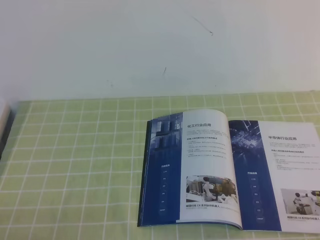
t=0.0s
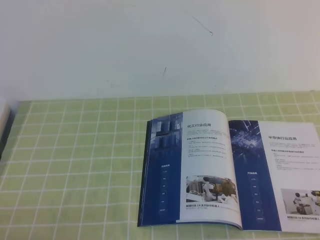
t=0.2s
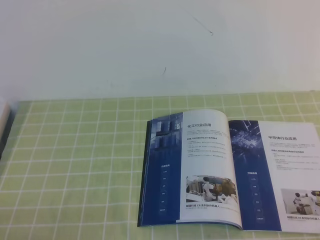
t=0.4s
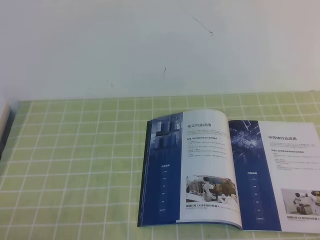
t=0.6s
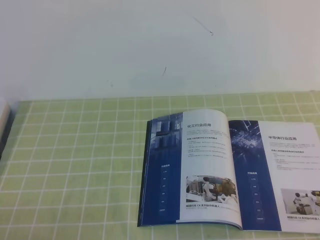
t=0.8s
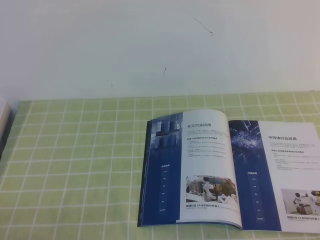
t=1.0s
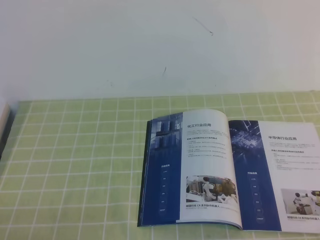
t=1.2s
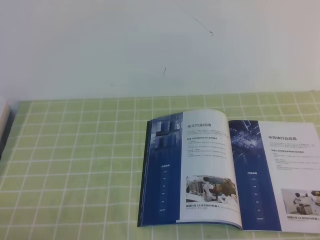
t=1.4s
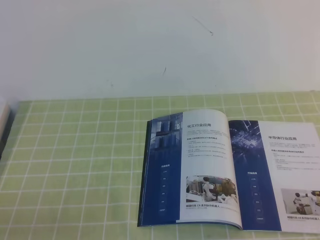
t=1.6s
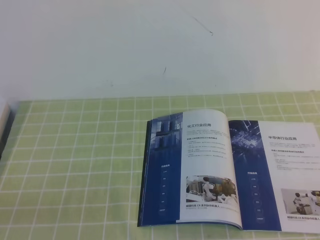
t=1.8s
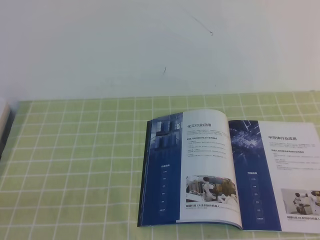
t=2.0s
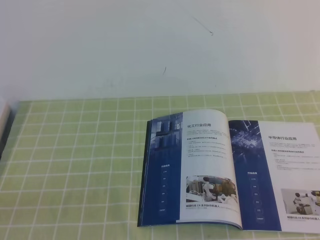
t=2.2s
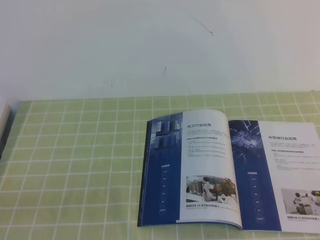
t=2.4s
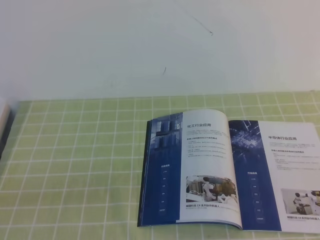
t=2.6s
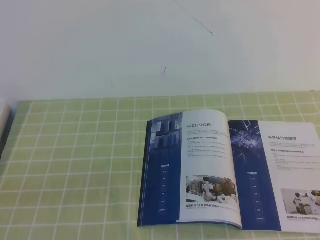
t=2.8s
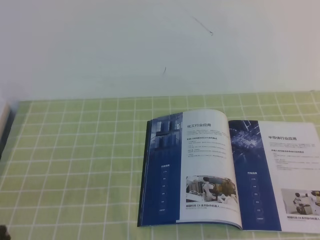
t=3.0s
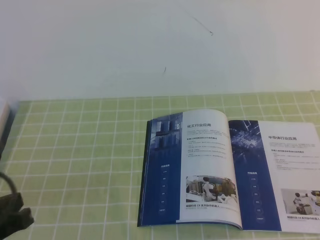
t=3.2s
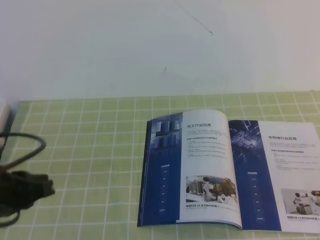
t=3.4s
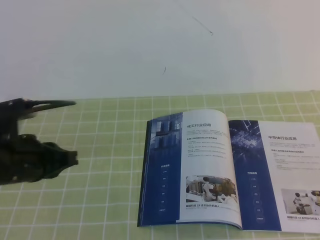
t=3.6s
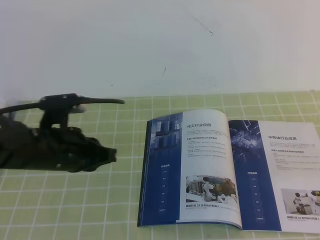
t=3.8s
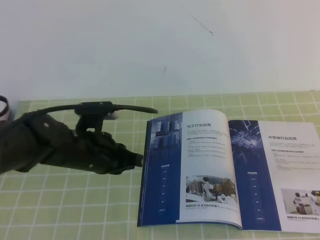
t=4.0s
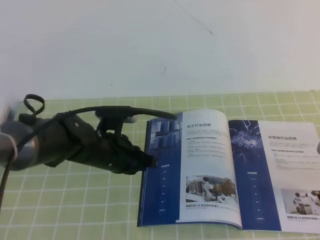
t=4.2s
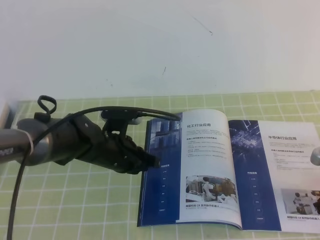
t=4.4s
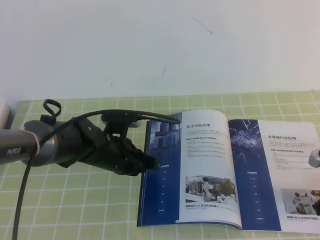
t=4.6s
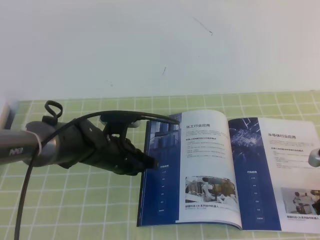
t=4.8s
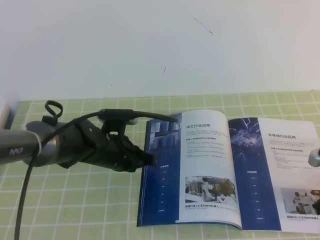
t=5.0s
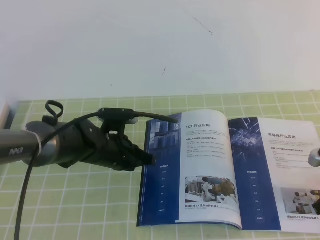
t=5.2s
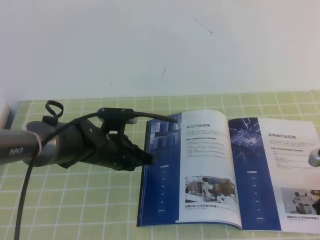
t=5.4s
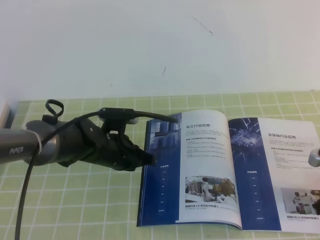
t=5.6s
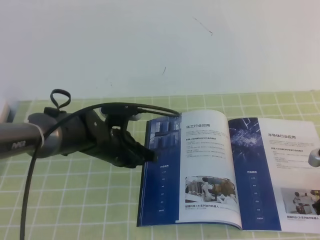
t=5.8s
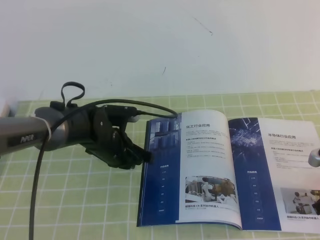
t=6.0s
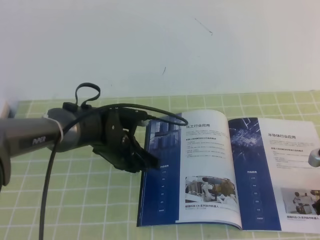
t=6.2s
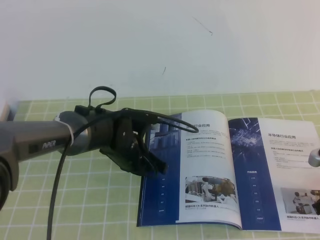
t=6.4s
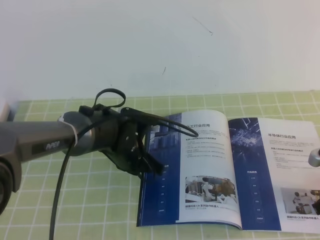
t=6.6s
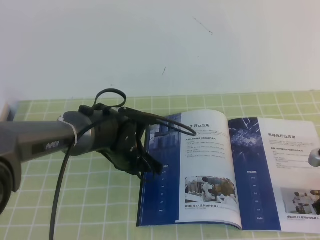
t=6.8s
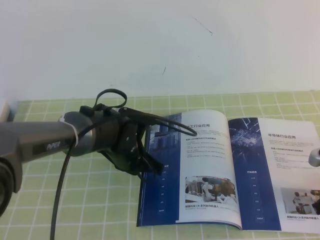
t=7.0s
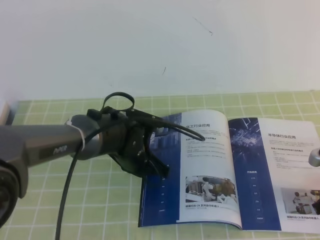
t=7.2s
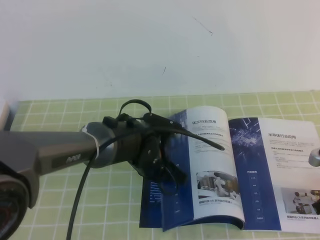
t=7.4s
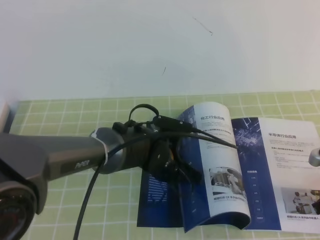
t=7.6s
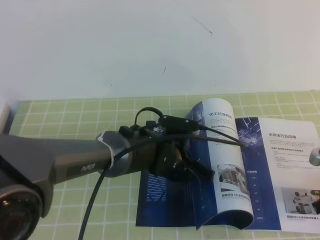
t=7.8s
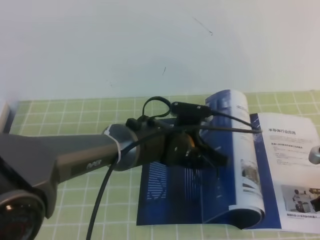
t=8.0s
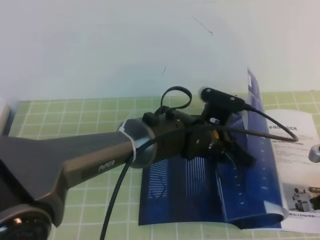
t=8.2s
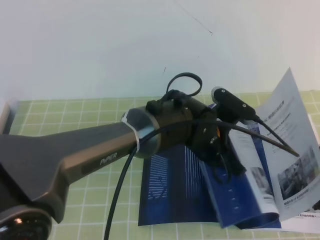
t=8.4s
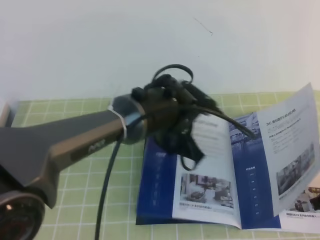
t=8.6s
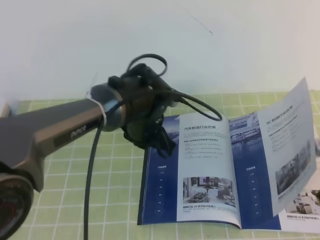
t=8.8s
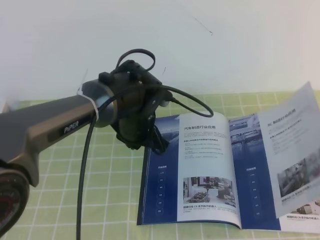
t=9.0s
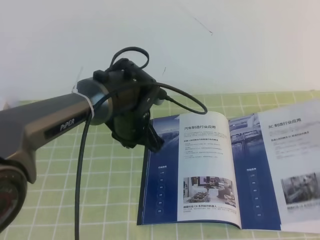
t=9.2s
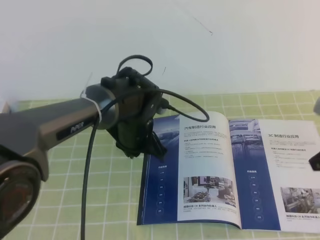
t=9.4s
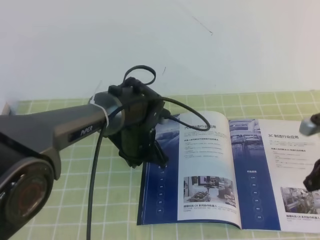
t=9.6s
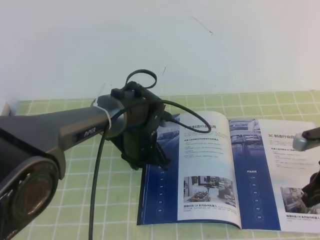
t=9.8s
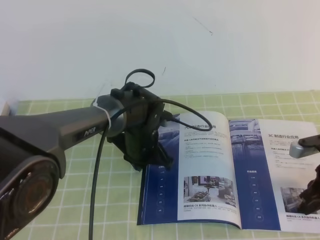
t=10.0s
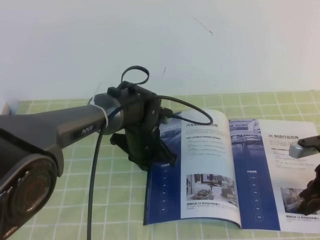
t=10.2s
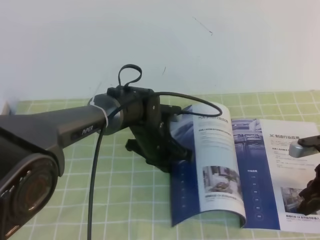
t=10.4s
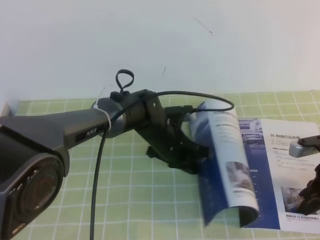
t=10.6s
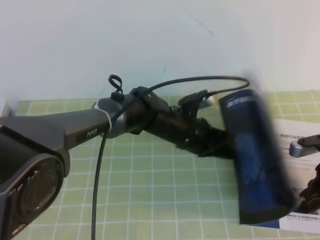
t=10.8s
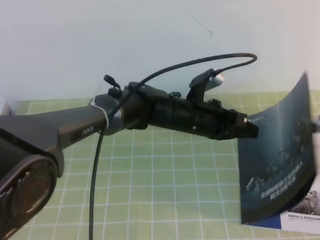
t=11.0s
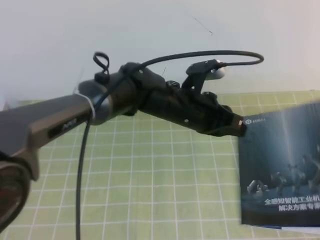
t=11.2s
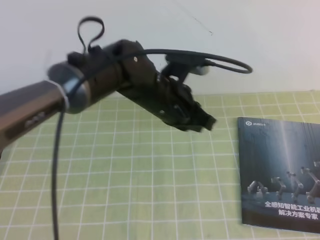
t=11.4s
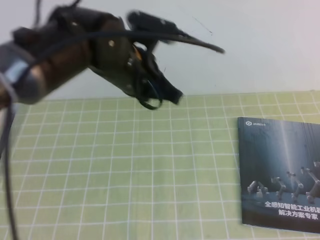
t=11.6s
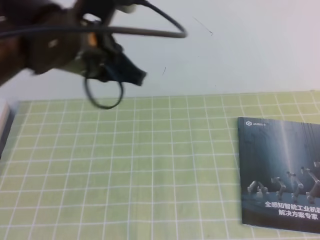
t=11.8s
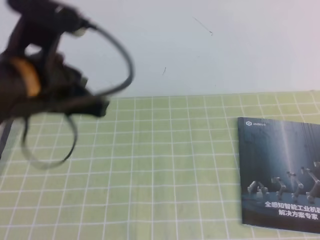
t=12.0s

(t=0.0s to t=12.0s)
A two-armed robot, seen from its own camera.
Task of the whole recording: on the green tablecloth, hold the book with one hand and close it with the other.
t=3.0s - t=4.4s: The right gripper is displaced forward and downward by about 25 cm; the left gripper is displaced forward, to the right and downward by about 30 cm.
t=4.4s - t=6.0s: The grippers stay close to where they were, moving slightly.
t=6.0s - t=7.6s: The left gripper travels to the right by some 10 cm.
t=7.6s - t=9.0s: The grippers both shift upward by about 10 cm.
t=9.0s - t=10.4s: The grippers both shift downward by about 5 cm.
t=10.4s - t=12.0s: The left gripper heads upward, backward and to the left, covering roughly 30 cm, while the right gripper is displaced upward and backward by approximately 30 cm.

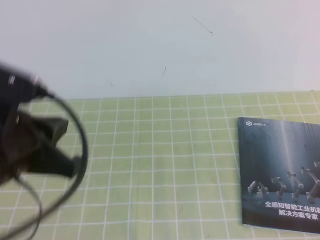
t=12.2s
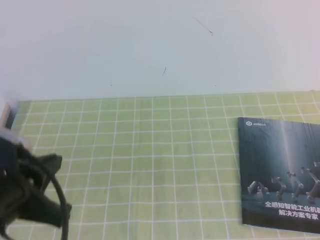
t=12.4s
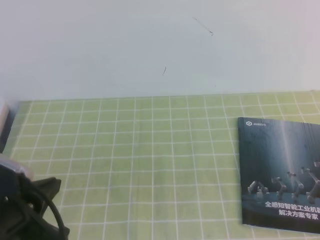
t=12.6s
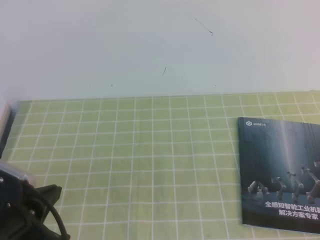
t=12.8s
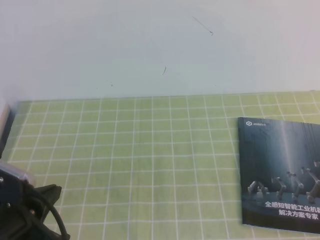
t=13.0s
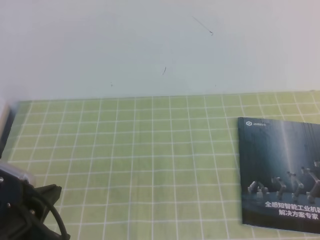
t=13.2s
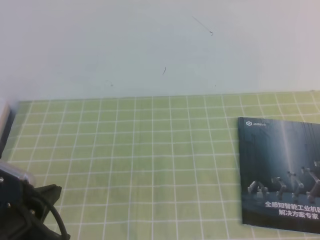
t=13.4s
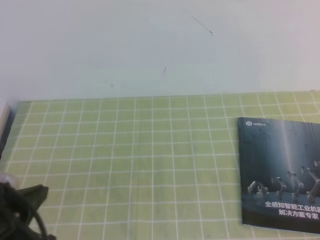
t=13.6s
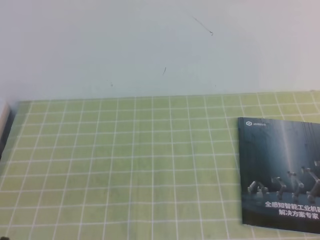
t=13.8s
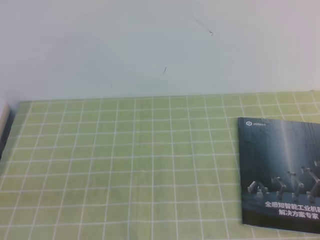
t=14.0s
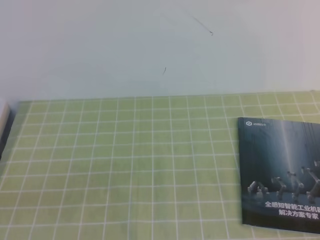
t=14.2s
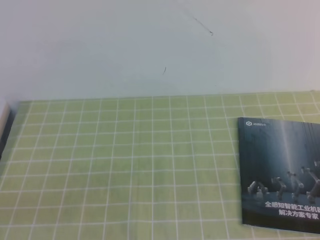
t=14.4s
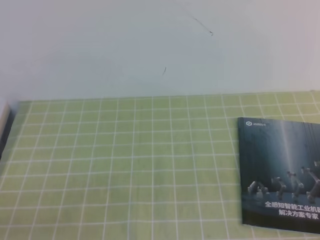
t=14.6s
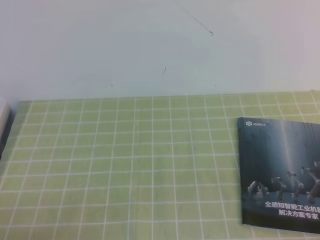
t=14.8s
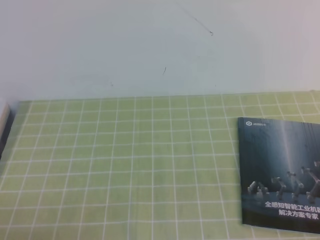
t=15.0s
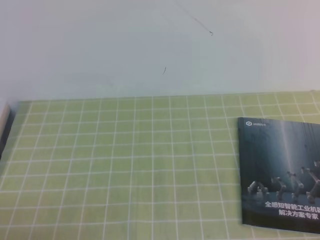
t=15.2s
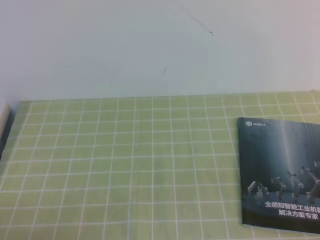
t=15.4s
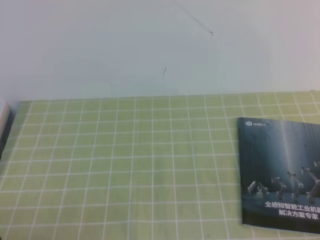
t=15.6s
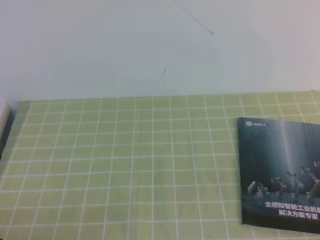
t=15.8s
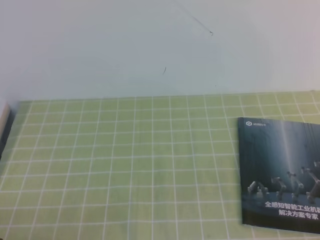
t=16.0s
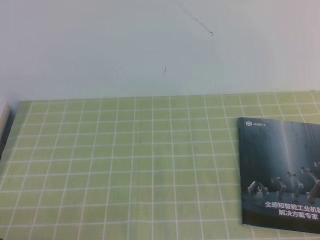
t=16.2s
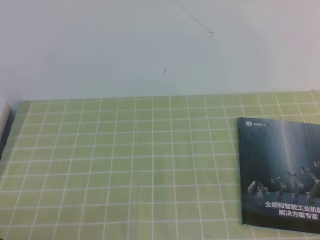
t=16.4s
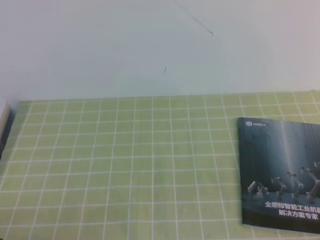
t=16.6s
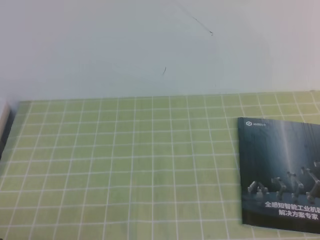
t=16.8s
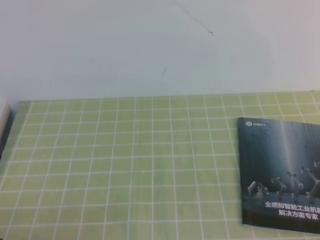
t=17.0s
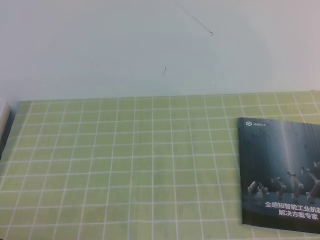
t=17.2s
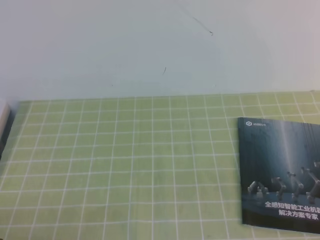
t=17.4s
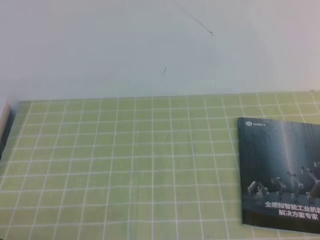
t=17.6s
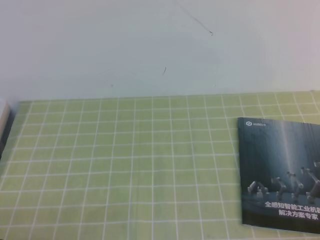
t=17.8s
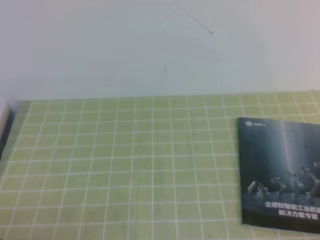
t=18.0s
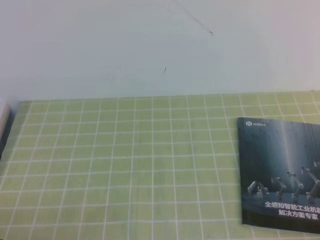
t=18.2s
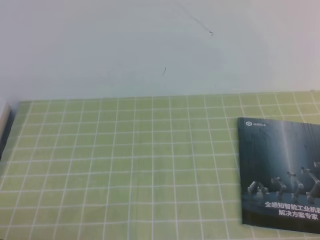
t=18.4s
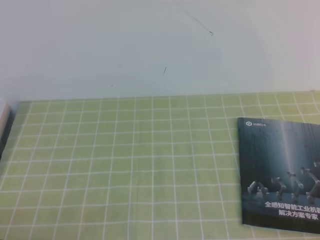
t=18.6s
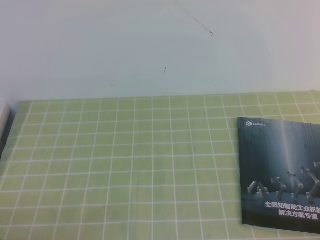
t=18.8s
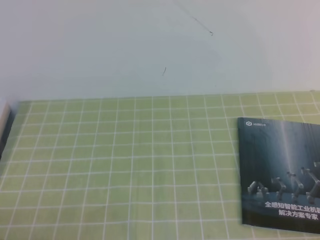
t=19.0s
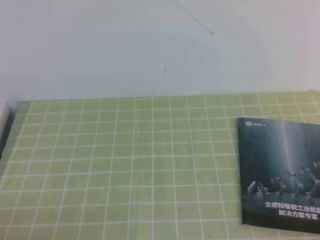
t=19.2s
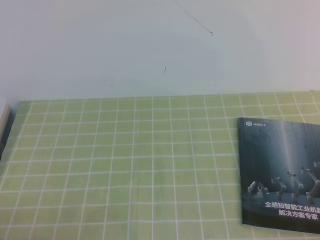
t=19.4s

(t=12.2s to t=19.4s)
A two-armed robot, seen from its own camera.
Task of the whole recording: on the green tablecloth, hold the book with one hand and close it with the other.
Step, t=12.2s - t=19.4s: Close the open book.
t=12.2s - t=13.6s: The left gripper goes approximately 10 cm downward and backward, while the right gripper moves downward, about 5 cm.
t=13.6s - t=15.0s: The left gripper shifts roughly 10 cm downward, backward and to the left.
t=18.0s - t=19.4s: Neither gripper changes place.
